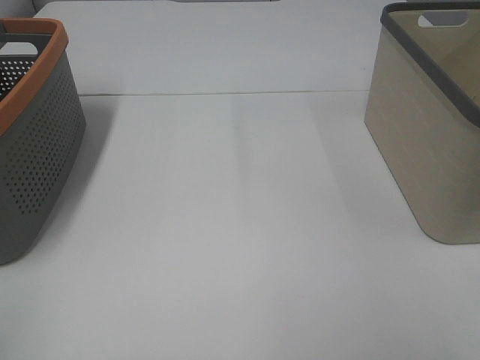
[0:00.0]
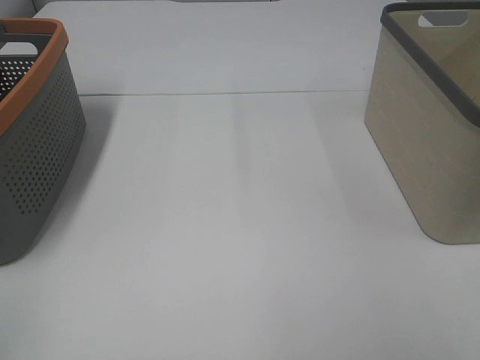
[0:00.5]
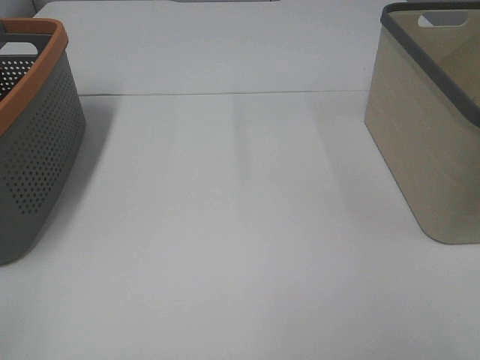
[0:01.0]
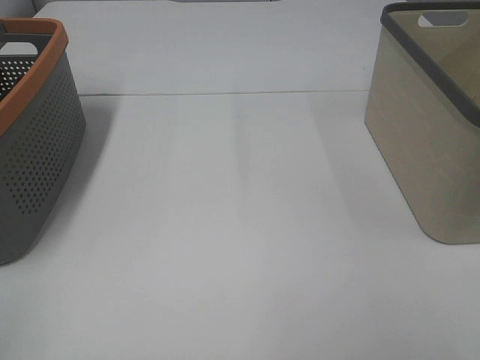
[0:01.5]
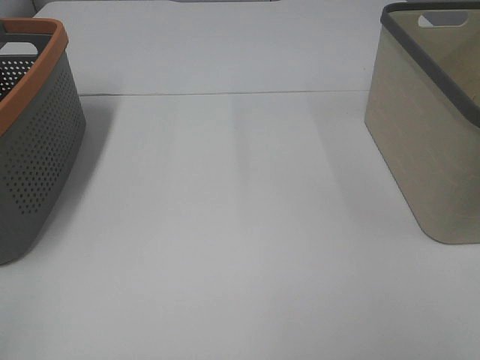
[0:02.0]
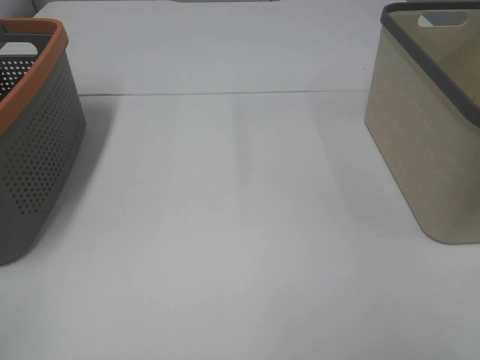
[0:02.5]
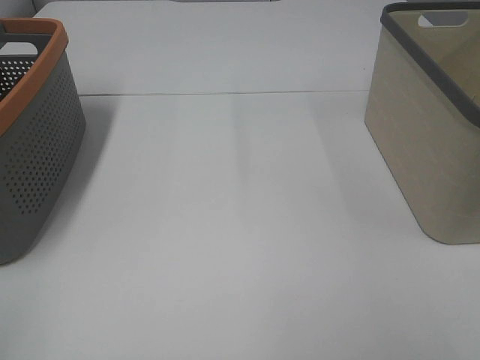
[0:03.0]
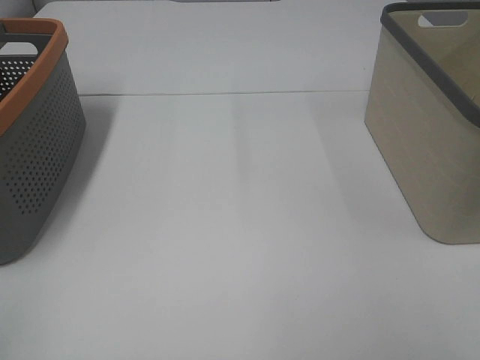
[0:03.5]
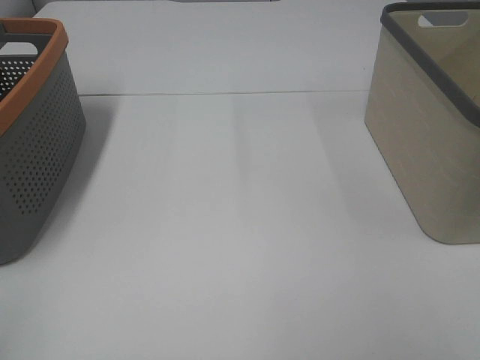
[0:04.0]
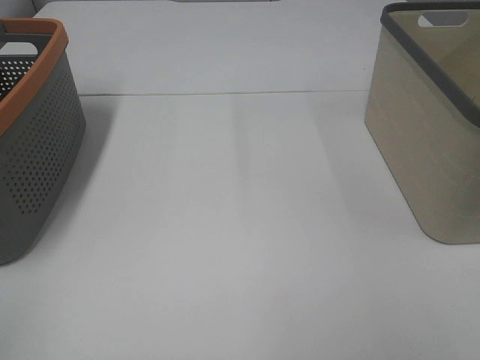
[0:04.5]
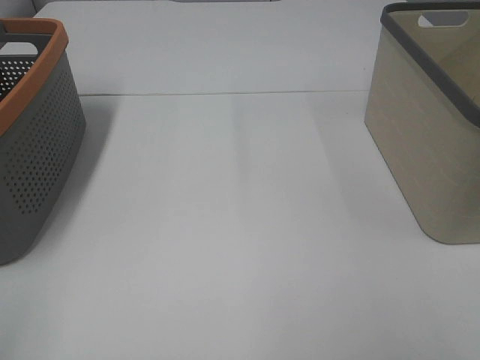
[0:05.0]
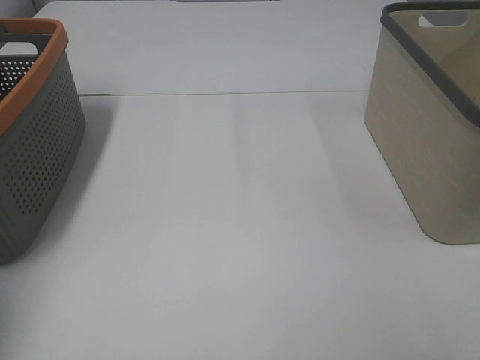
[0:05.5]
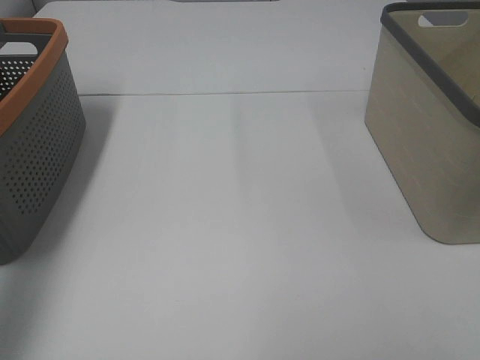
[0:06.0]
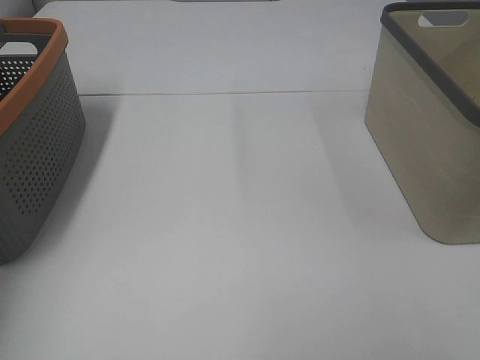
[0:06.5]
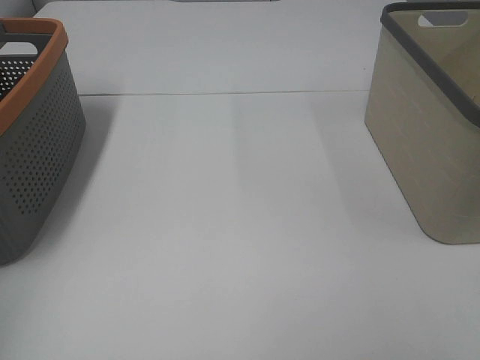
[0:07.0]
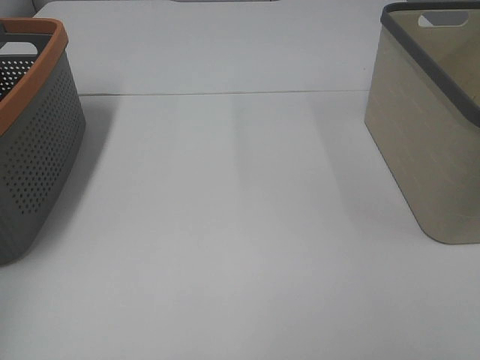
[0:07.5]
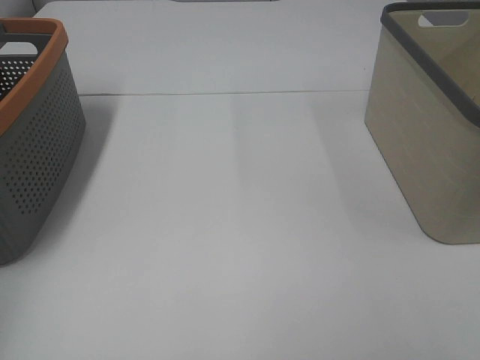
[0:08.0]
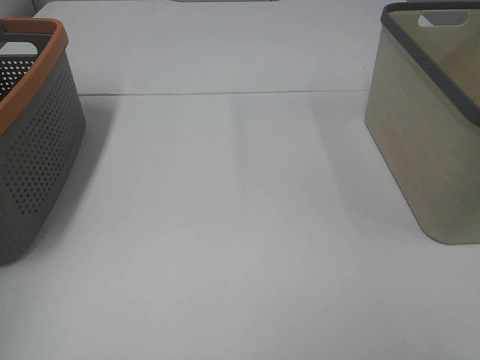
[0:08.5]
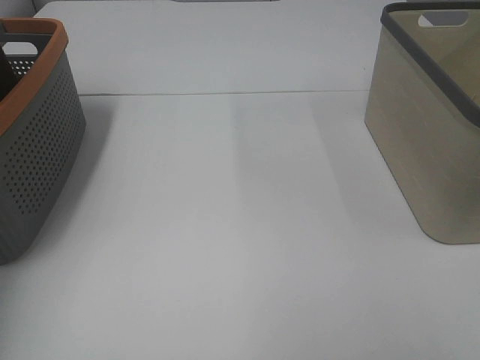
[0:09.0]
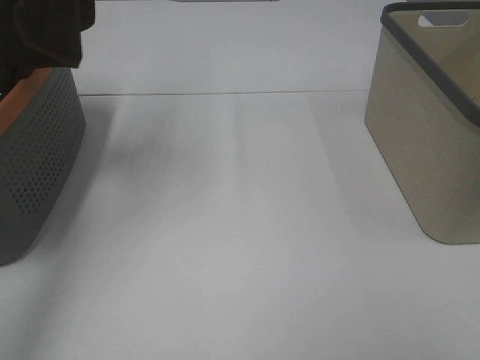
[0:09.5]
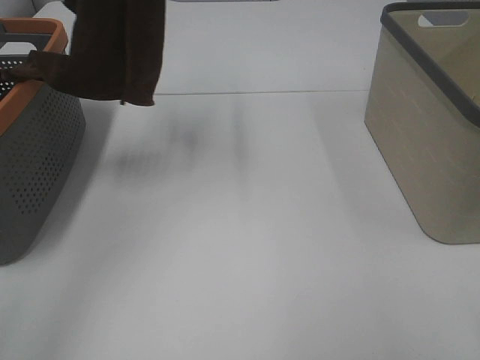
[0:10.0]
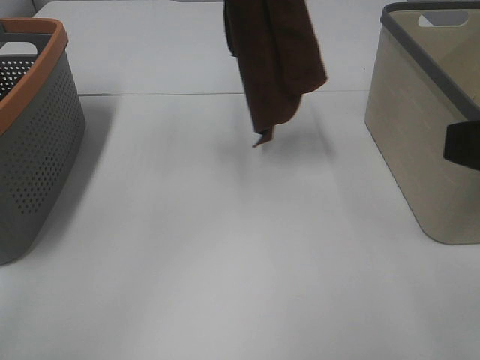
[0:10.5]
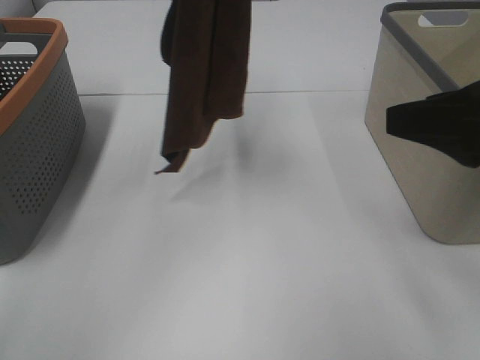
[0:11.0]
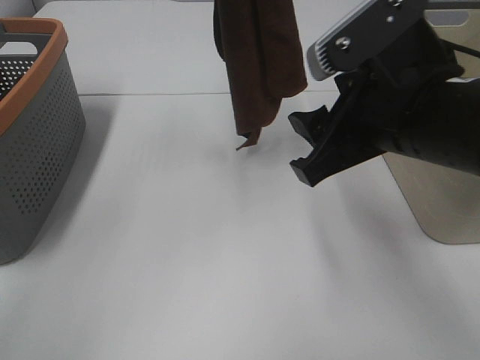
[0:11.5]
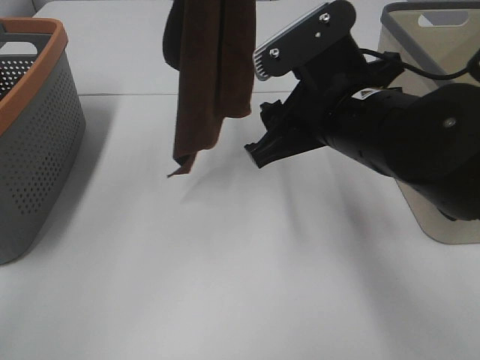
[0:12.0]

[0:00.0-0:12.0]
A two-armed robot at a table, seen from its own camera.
Task of the whole recording: Remove the towel and place it.
0:00.0 to 0:04.0: Both grippers stay put.
0:04.0 to 0:06.0: The left gripper moves forward, about 25 cm.
0:06.0 to 0:08.0: The left gripper goes approximately 15 cm downward, to the left and forward, and closes up.
0:08.0 to 0:10.0: The left gripper goes approximately 35 cm to the right and upward.
0:10.0 to 0:12.0: The left gripper travels to the right by roughly 5 cm; the right gripper heads forward and to the left, covering approximately 30 cm.

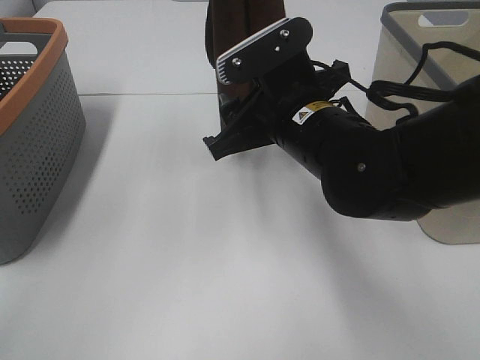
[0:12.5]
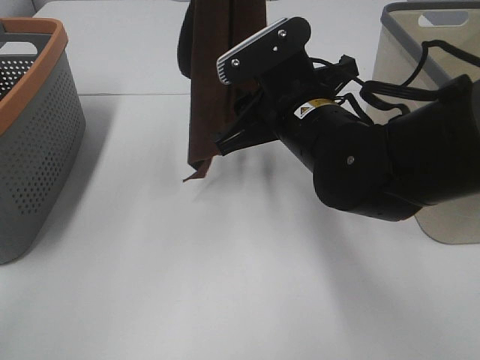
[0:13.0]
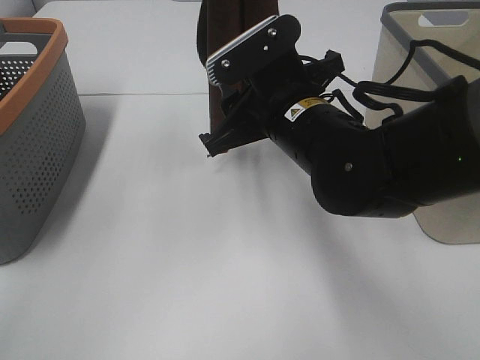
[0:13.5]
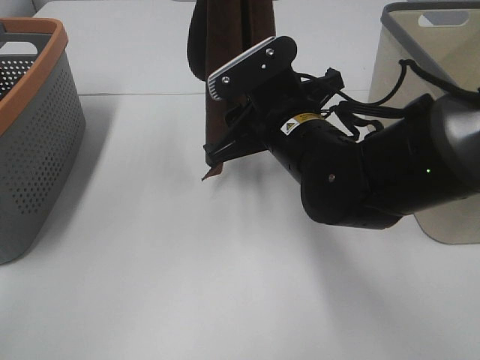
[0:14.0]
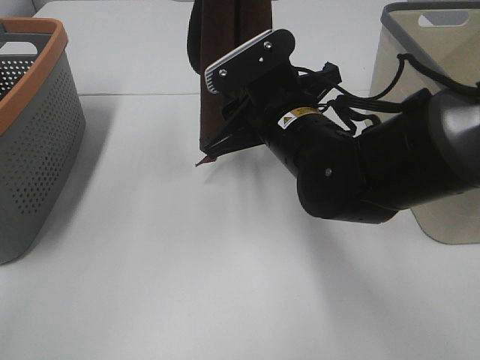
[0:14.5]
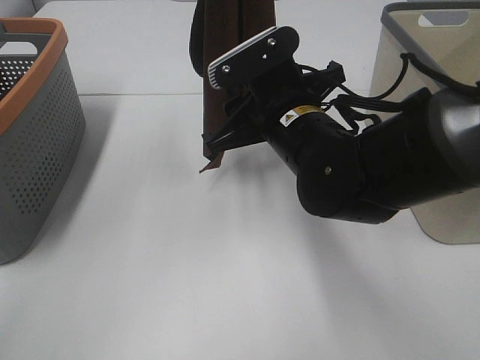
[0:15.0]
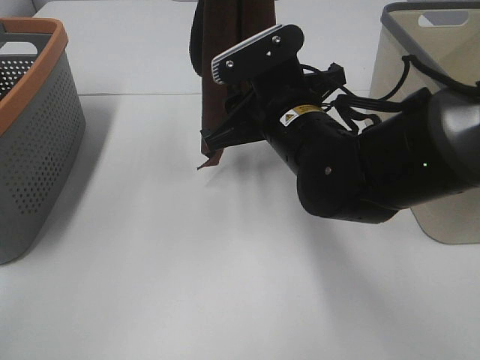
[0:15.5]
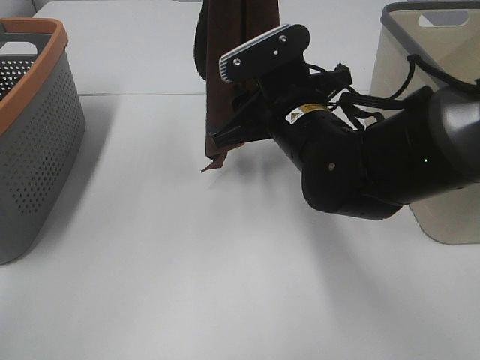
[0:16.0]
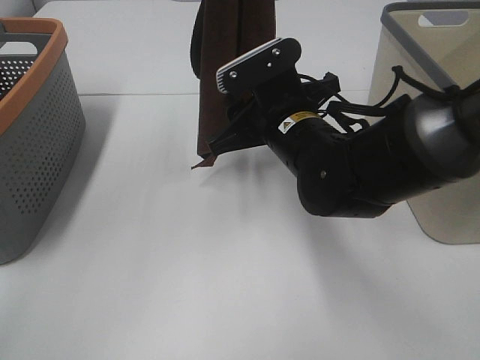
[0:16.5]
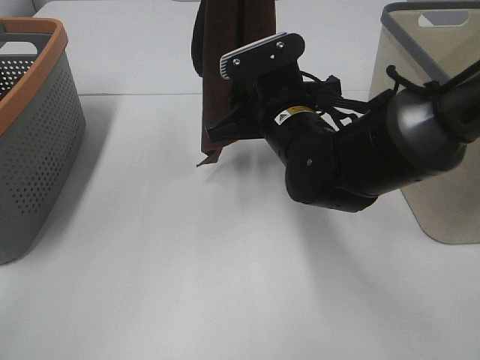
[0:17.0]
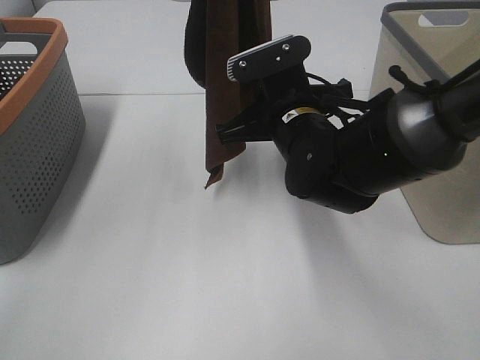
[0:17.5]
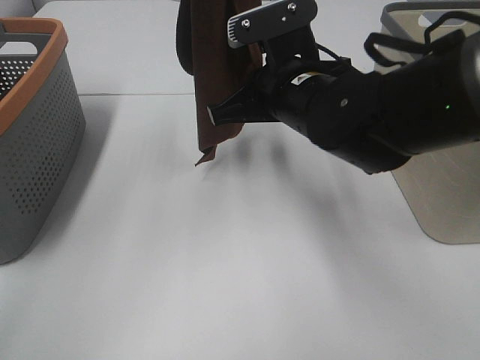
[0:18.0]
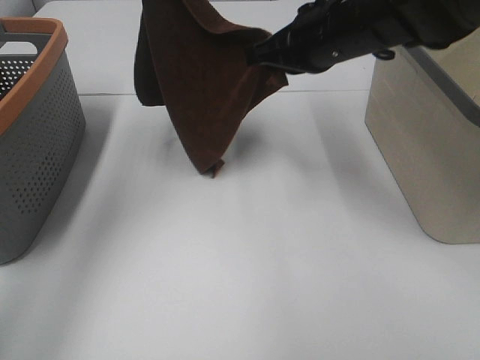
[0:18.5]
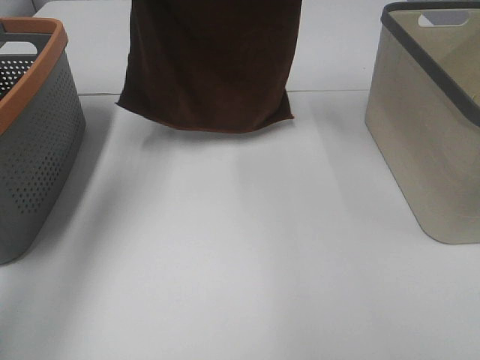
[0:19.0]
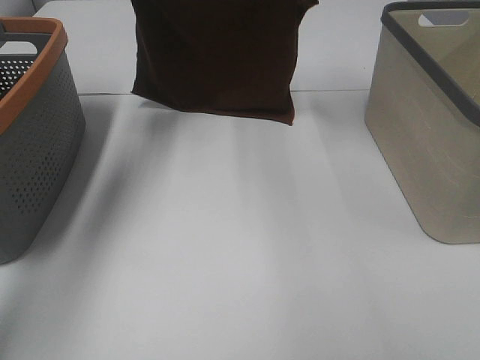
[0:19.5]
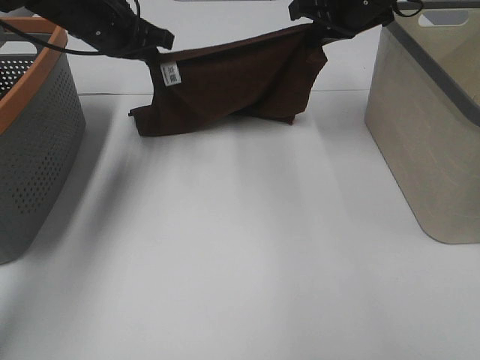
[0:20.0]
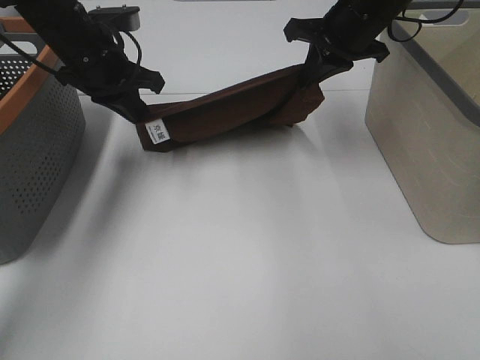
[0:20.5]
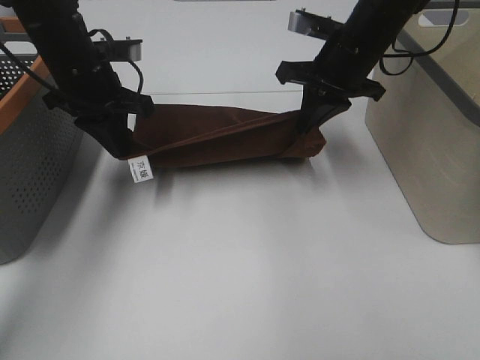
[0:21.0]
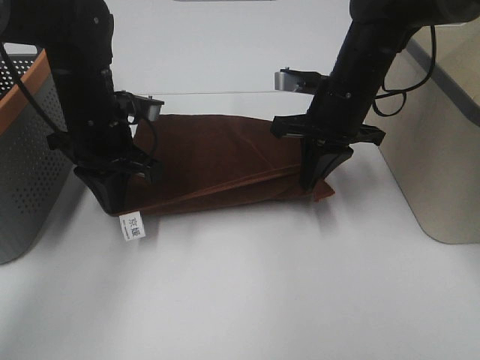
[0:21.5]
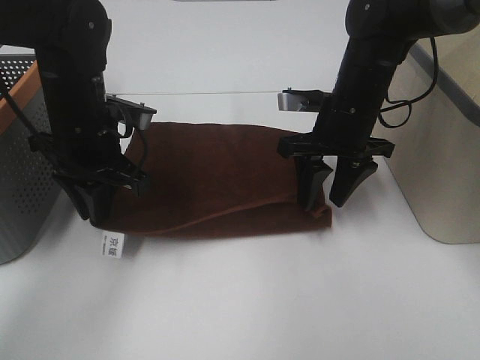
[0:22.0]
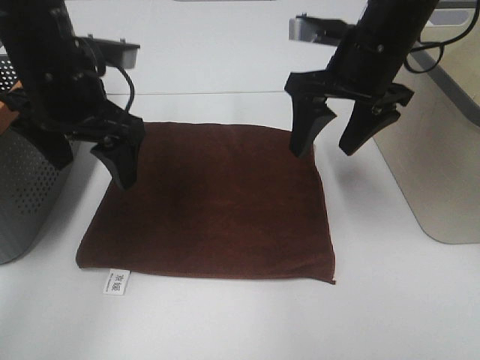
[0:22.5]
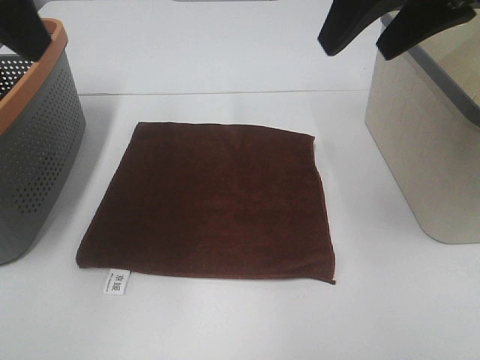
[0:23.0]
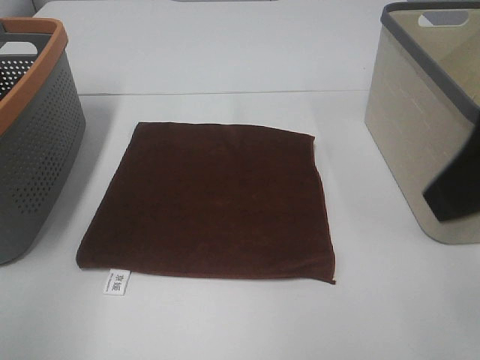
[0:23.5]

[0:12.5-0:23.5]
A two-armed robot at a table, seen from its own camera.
Task of the whole recording: Remove the towel and place it.
Step, 0:12.5 to 0:15.0: Right hand: grab a corner of the brown towel and straighten it.
Step, 0:15.5 to 0:17.5: Right hand: spread the brown towel flat on the table.
0:12.5 to 0:16.0: The grippers stay close to where they were, moving slightly.
0:16.0 to 0:18.0: The right gripper closes up.
0:18.0 to 0:20.0: The left gripper moves downward and forward, about 20 cm, while the right gripper goes approximately 20 cm forward and to the right.
0:20.0 to 0:21.5: Both grippers travel together backward and downward, approximately 15 cm.
0:21.5 to 0:23.5: The left gripper heads backward, upward and to the left, covering approximately 35 cm, and opens. The right gripper travels backward and upward by about 30 cm, and opens its fingers.

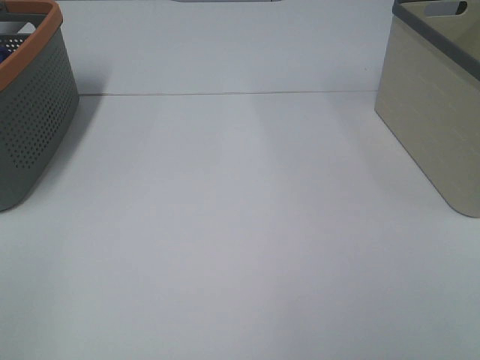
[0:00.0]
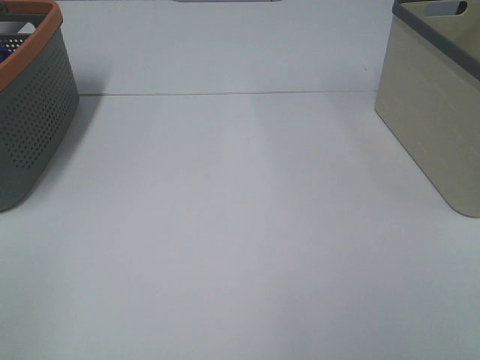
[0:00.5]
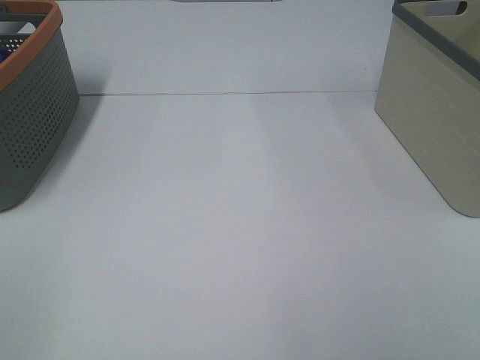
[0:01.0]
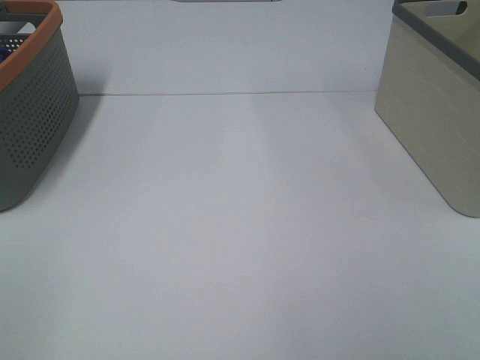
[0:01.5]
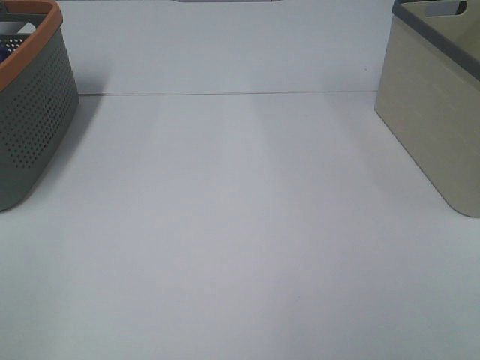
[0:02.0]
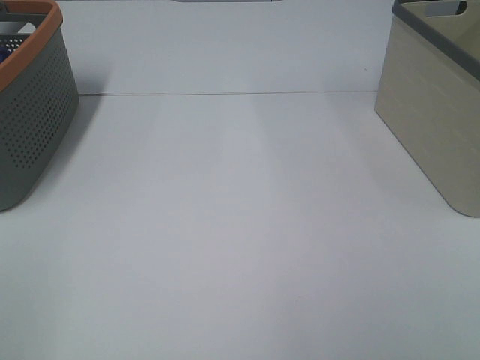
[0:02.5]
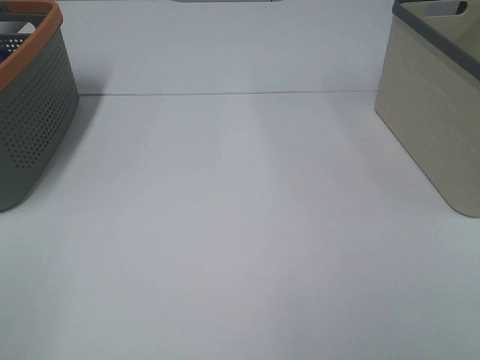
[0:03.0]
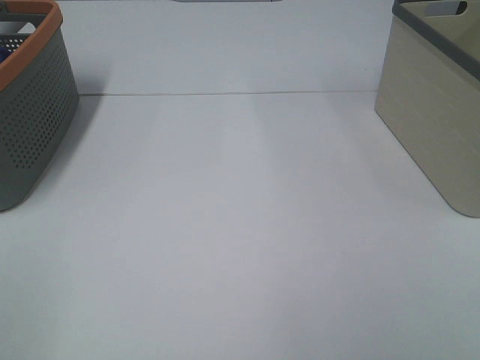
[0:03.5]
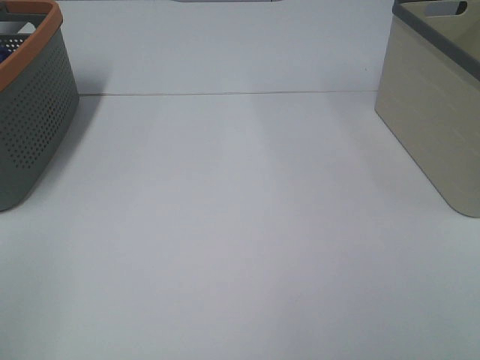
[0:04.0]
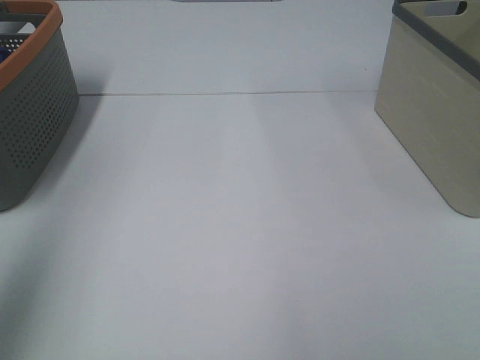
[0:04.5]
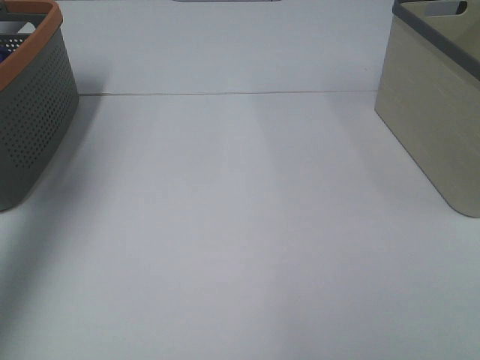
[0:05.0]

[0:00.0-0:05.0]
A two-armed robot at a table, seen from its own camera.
Task of the whole recording: Remove the towel and place it.
0:00.0 to 0:02.5: Neither gripper changes place.
0:02.5 to 0:05.0: The left gripper is displaced forward by roughly 35 cm.
